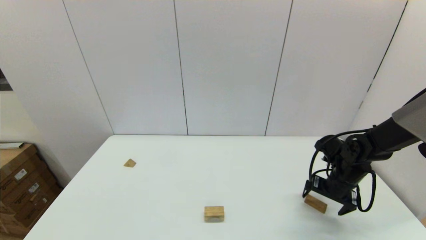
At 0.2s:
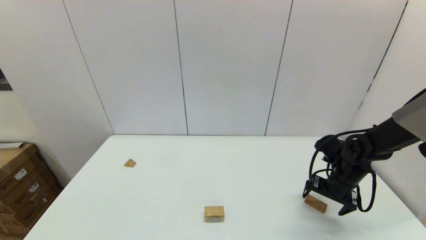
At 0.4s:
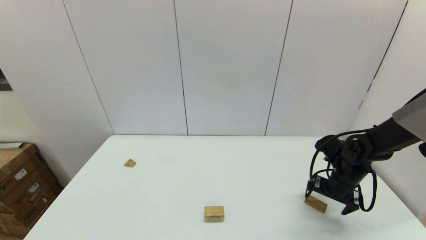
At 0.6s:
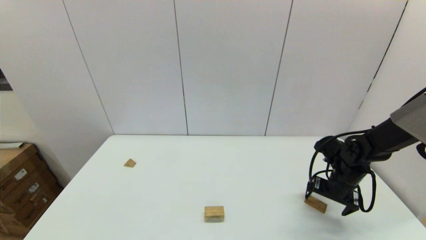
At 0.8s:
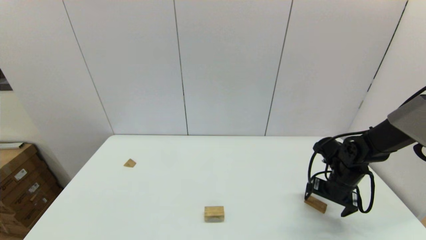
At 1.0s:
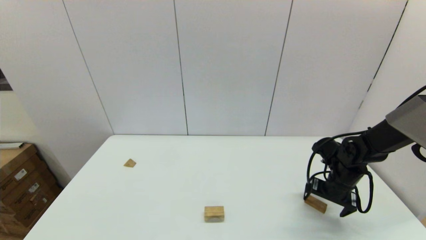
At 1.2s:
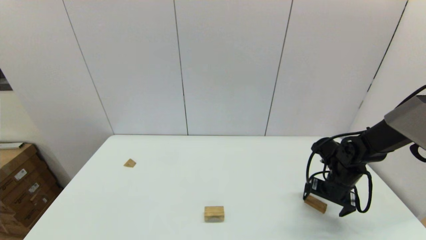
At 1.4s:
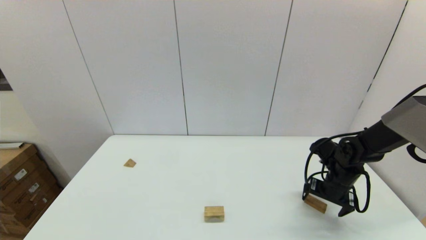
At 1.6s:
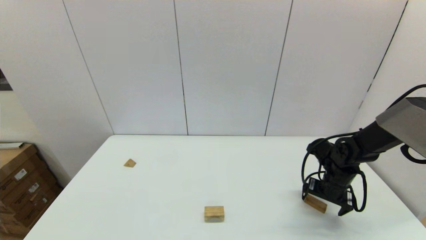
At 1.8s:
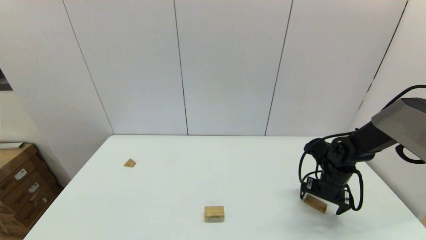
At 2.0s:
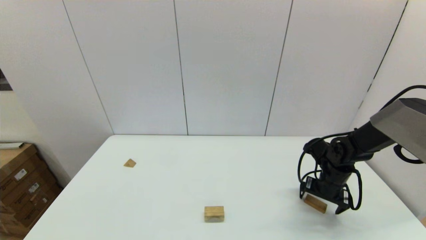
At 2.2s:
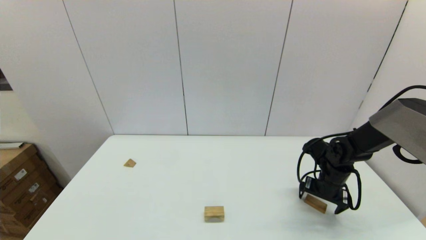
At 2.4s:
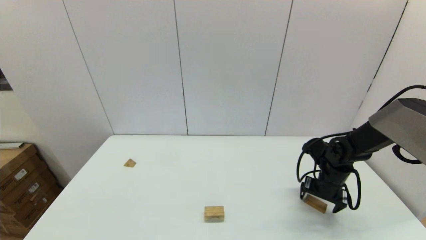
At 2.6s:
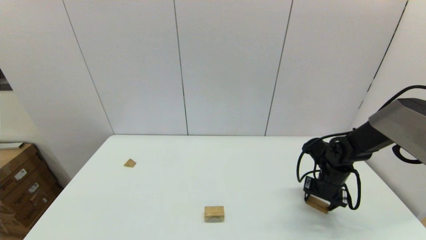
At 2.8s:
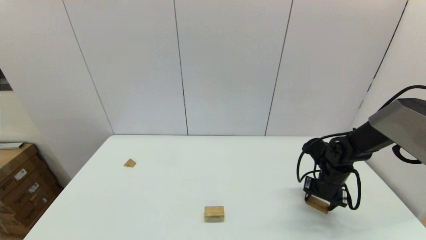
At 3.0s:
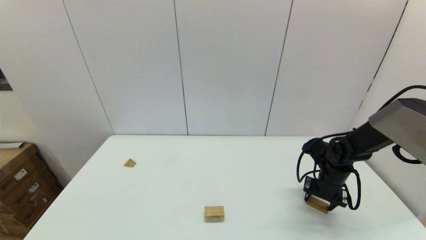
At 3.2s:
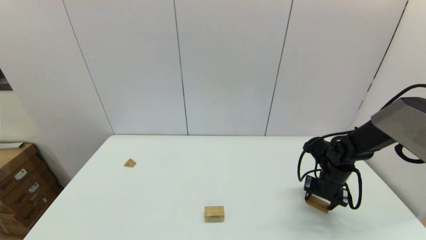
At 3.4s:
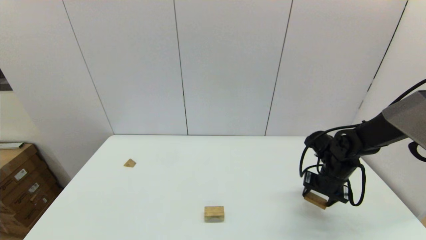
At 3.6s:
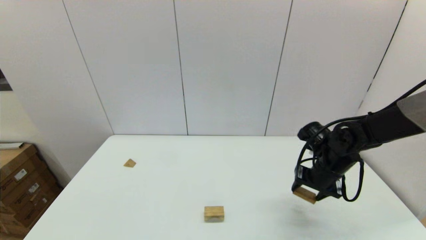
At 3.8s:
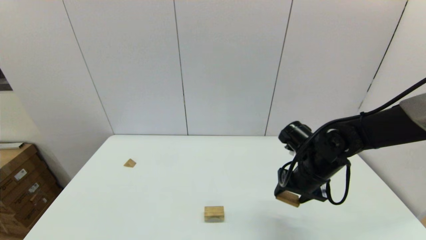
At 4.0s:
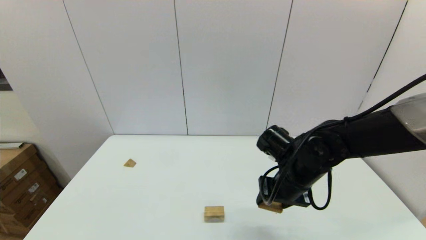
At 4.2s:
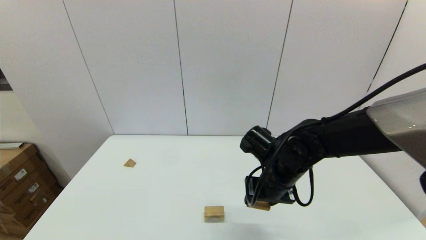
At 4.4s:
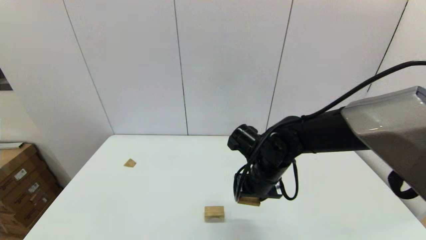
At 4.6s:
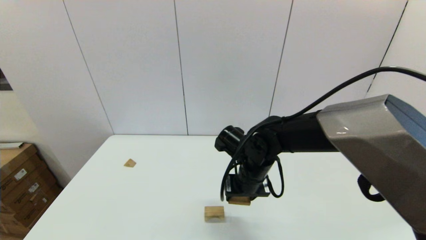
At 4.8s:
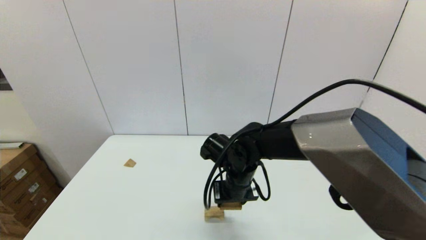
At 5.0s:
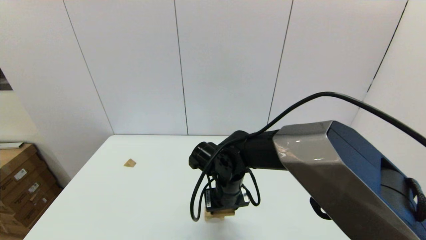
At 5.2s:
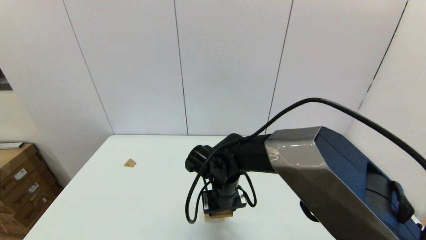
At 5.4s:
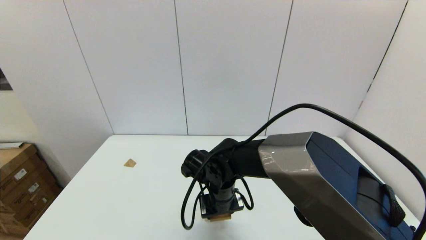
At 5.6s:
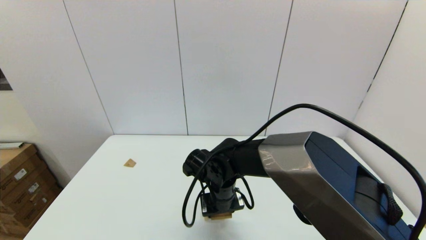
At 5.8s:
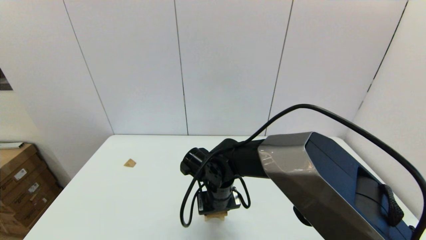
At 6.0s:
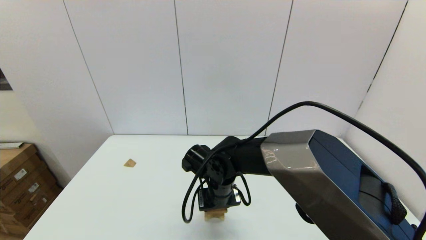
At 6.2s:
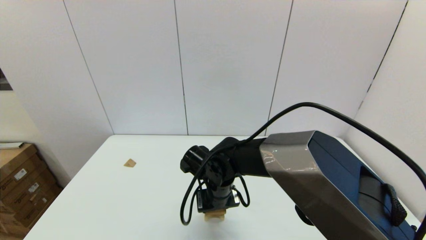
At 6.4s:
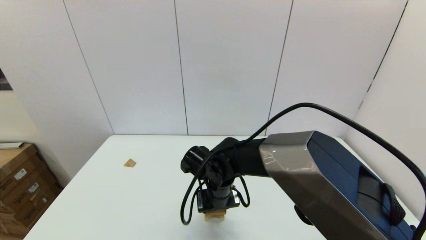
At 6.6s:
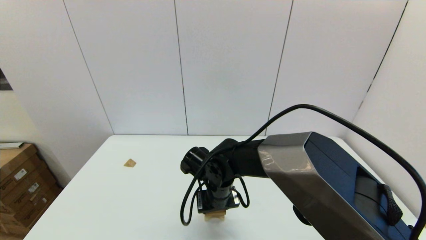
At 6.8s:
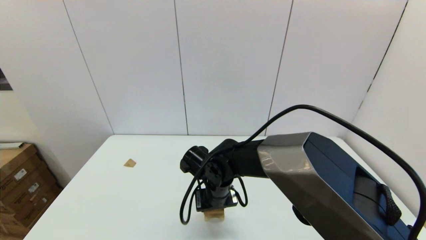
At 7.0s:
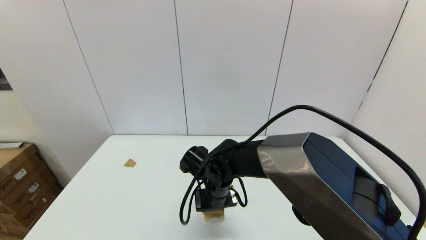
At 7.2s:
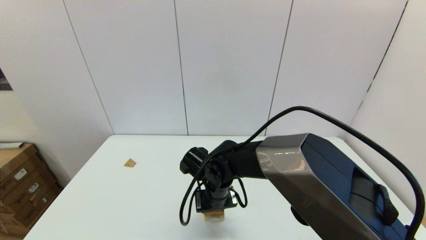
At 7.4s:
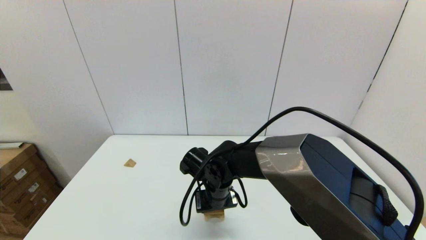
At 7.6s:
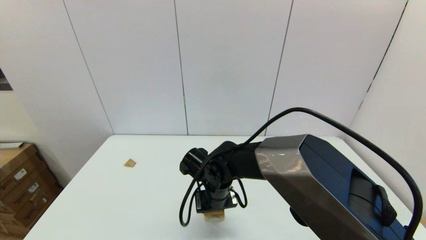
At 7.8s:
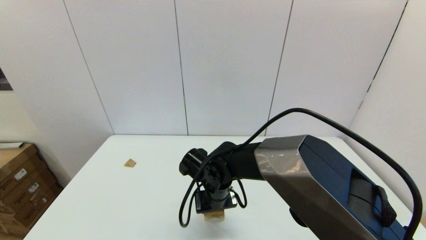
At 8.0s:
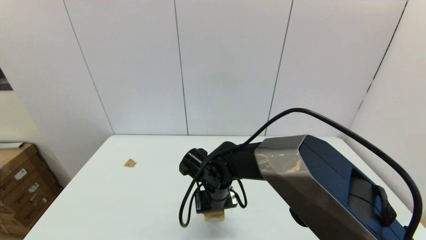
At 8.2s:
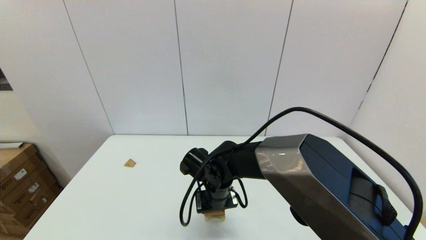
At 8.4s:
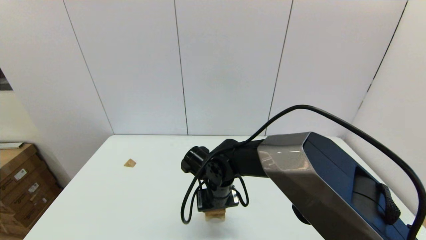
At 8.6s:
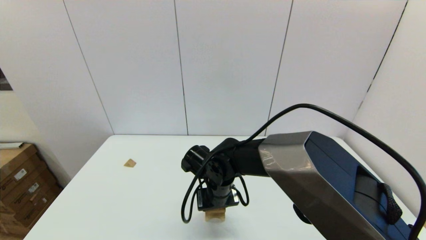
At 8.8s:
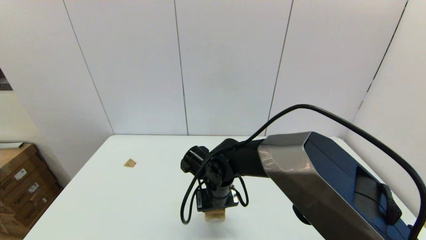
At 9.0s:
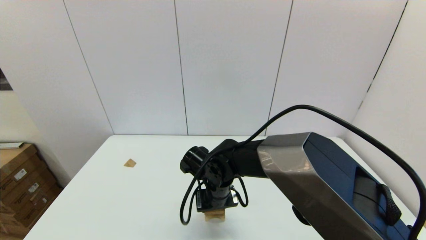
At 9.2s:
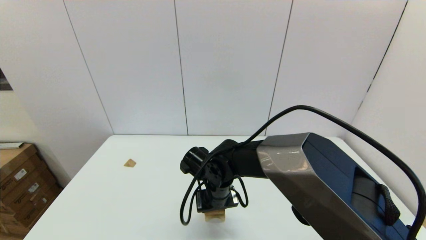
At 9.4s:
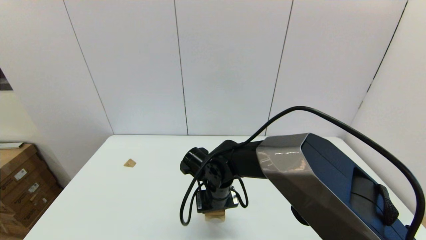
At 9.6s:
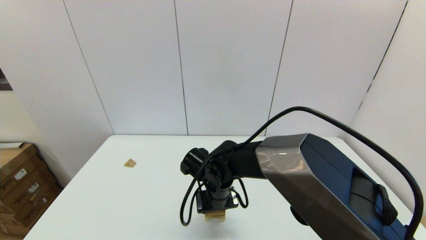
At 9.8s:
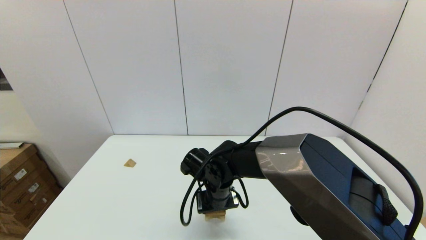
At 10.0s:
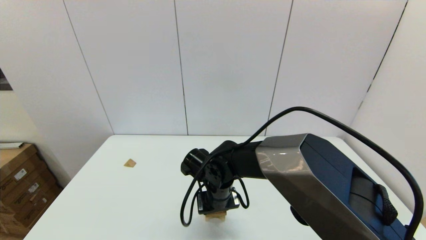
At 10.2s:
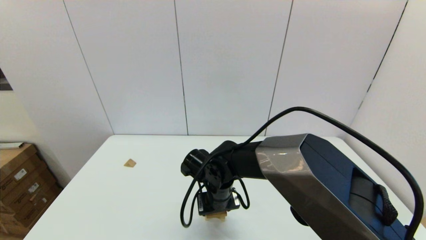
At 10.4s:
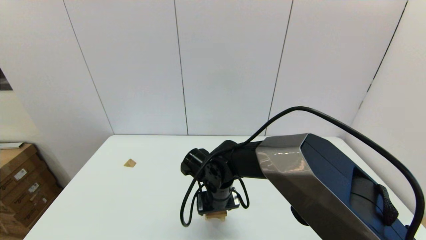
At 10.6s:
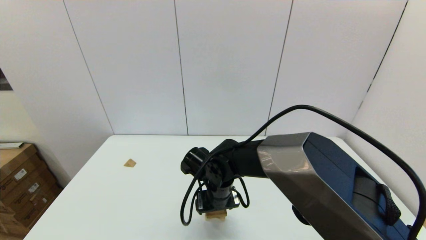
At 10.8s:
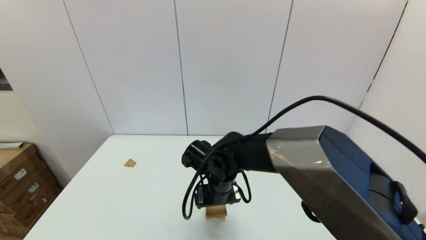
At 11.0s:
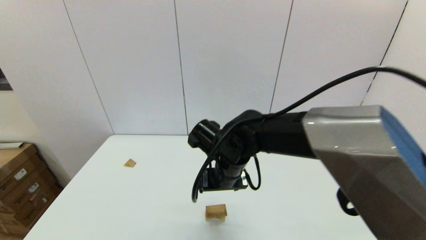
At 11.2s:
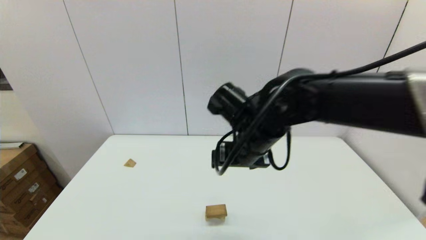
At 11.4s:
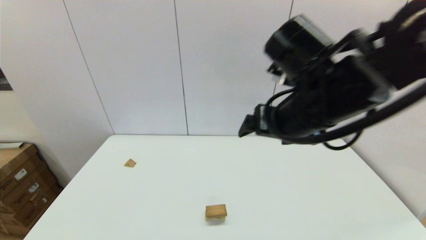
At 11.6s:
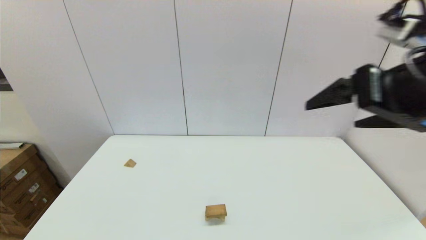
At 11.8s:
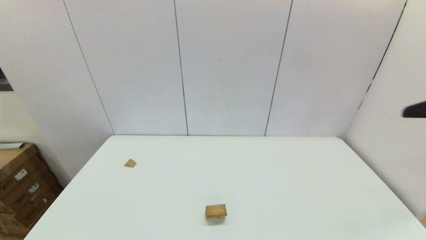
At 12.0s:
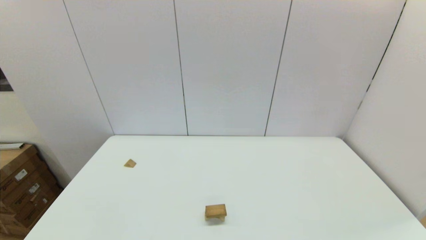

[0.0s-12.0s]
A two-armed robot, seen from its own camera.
Task of the whole recording: place the arched building blocks in the center of the table, set up the rectangular building blocks, and then set up the triangular building blocks.
Step, 0.0s to 2.8s: Grasp the box-shaped block with the right gripper.
Step, 3.2s to 10.0s: Place the box-shaped block onto the arch-shaped block with the right gripper.
0.0s to 1.6s: The grippers make only small movements.
1.6s to 3.0s: The right gripper closes up.
3.0s to 4.4s: The right gripper goes about 25 cm to the left and upward.
4.4s to 6.0s: The right gripper moves to the left, some 10 cm.
6.0s to 7.6s: The grippers make only small movements.
7.6s to 9.0s: The two grippers keep their place.
9.0s to 10.4s: The right gripper opens.
10.4s to 12.0s: The right gripper shifts some 50 cm to the right, backward and upward, and opens.

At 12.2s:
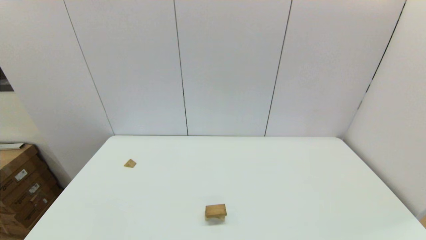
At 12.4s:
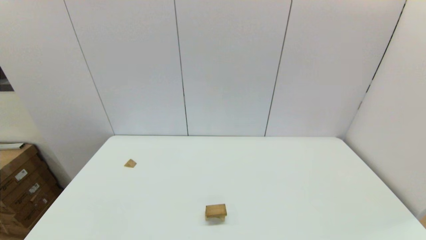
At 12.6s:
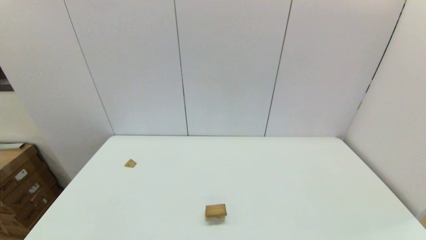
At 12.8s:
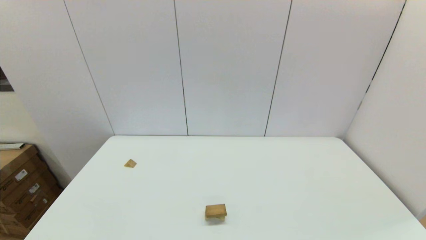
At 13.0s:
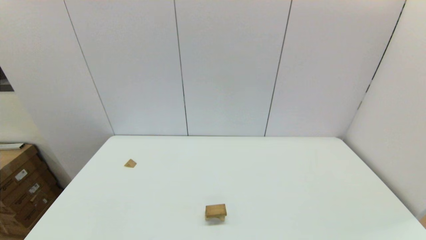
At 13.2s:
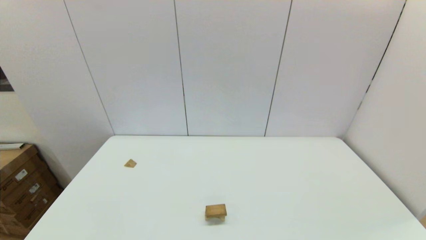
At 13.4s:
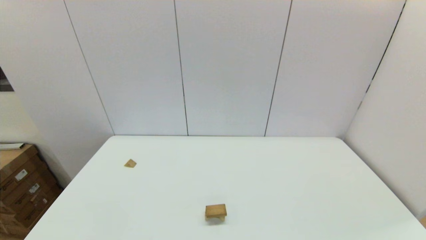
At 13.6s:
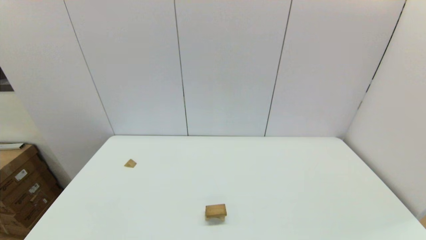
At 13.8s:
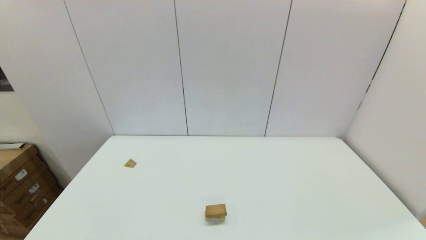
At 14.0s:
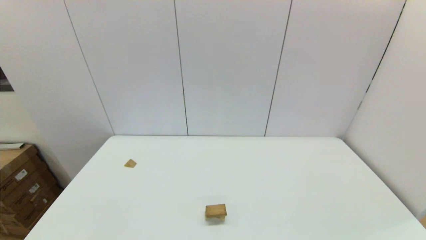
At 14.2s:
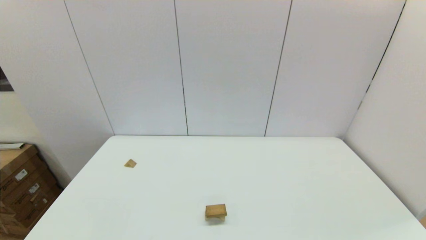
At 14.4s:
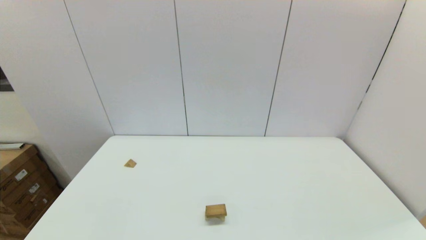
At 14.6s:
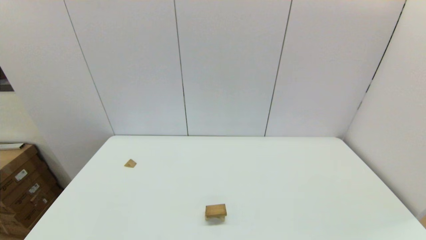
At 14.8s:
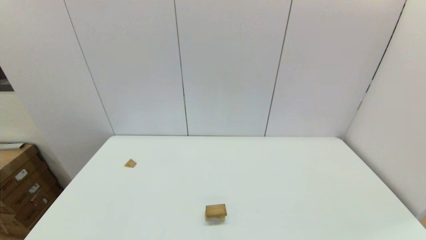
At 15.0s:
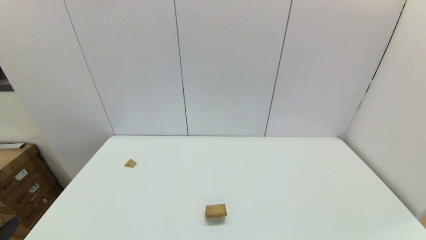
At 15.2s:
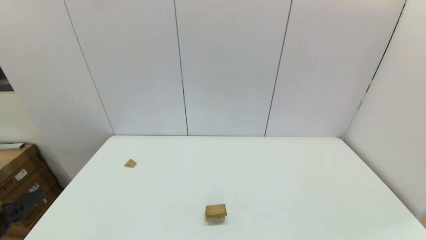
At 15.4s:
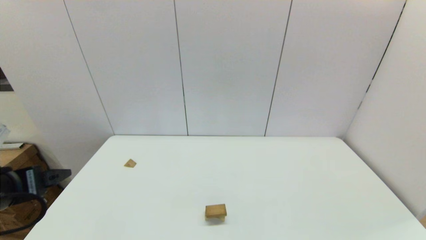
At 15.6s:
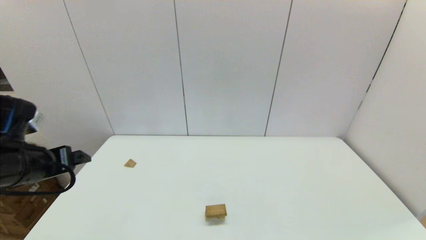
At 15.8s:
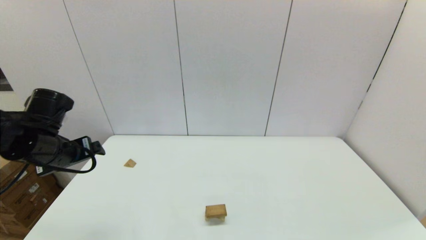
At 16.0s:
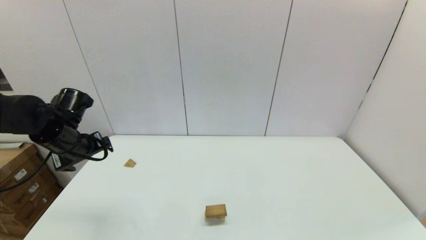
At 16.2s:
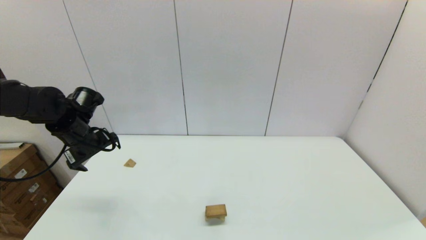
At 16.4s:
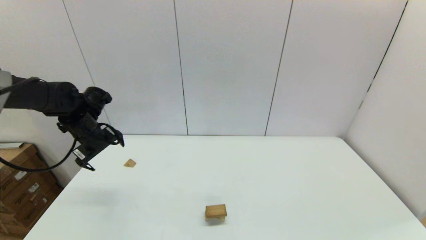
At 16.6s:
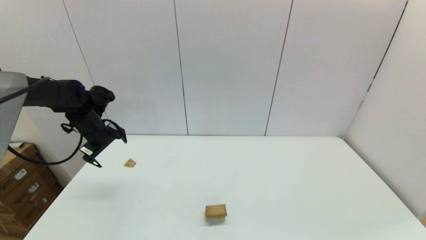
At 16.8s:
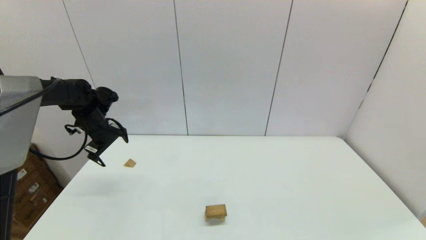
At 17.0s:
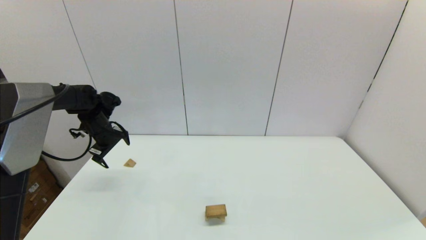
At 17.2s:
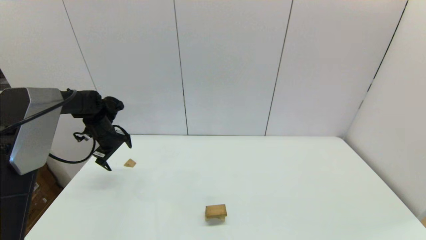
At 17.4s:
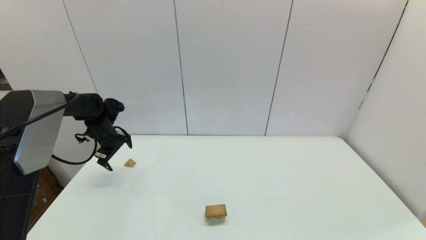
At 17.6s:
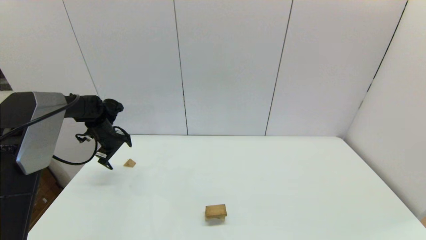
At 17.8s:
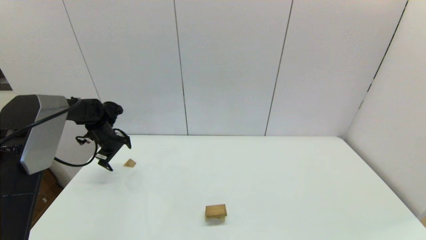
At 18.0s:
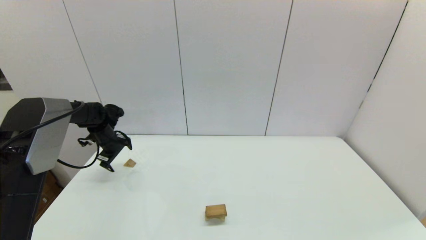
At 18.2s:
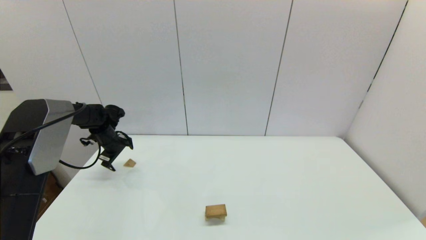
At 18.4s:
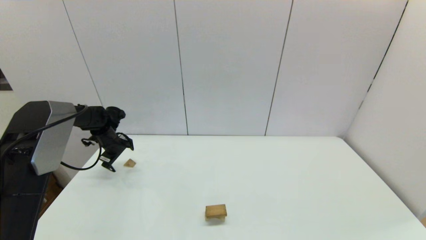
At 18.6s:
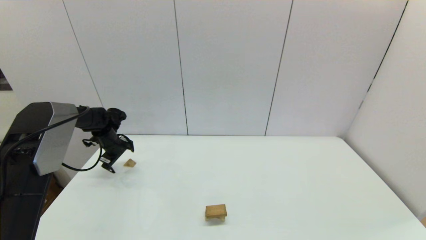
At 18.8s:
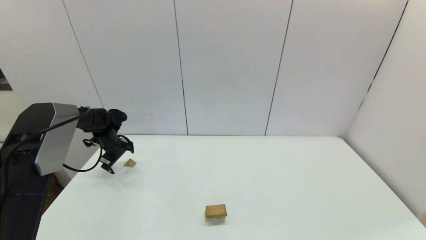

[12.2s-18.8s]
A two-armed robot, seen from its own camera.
Task of the whole recording: place the arched building blocks in the center of the table, set up the rectangular building blocks, and then set up the triangular building blocks.
13.8s to 15.4s: The left gripper heads forward and upward, covering some 20 cm.
15.4s to 17.2s: The left gripper heads forward, covering roughly 30 cm.
17.2s to 18.8s: The left gripper shifts some 5 cm downward.
